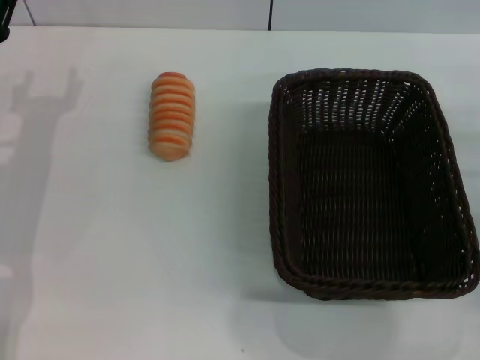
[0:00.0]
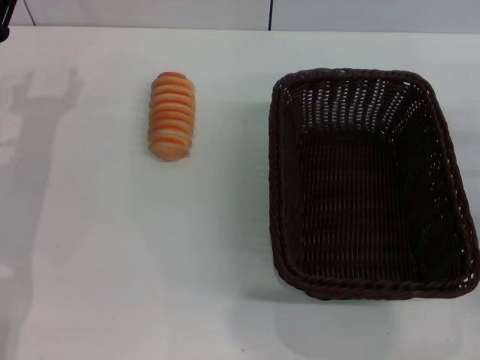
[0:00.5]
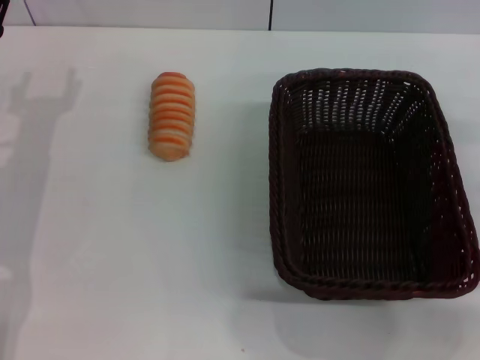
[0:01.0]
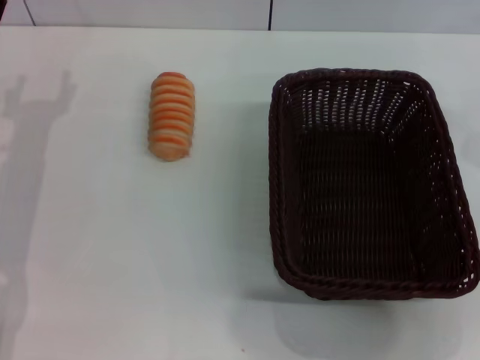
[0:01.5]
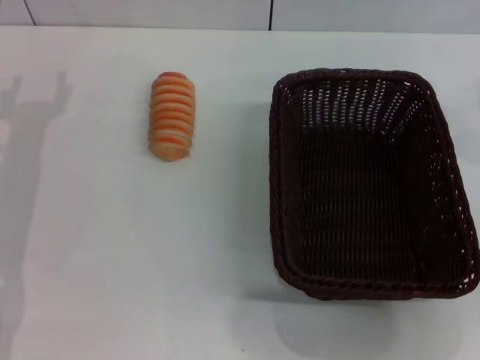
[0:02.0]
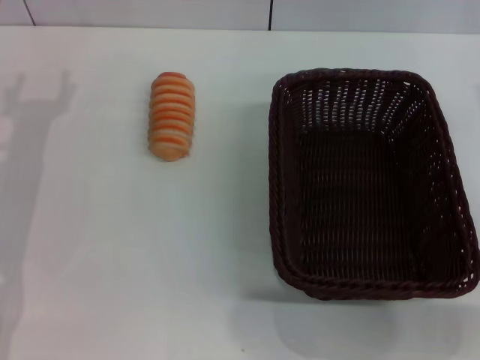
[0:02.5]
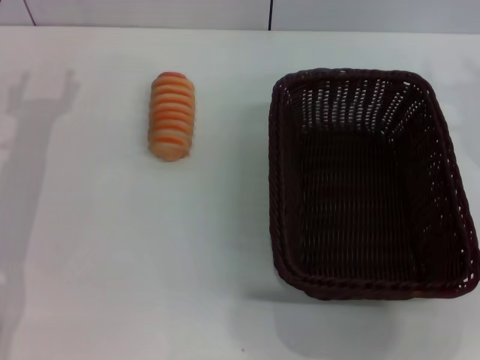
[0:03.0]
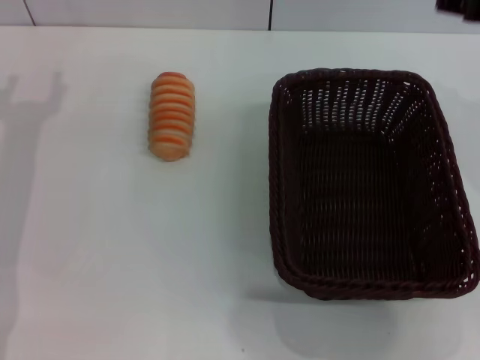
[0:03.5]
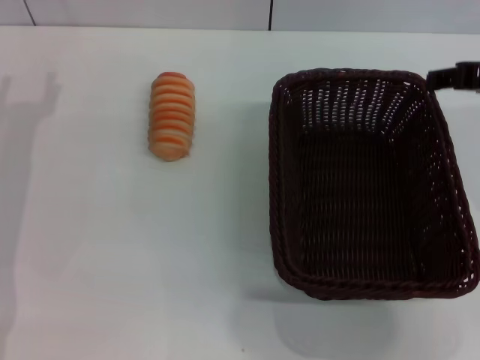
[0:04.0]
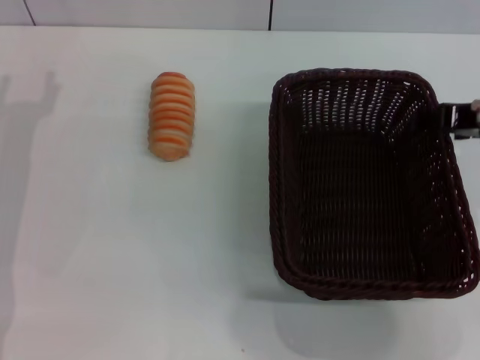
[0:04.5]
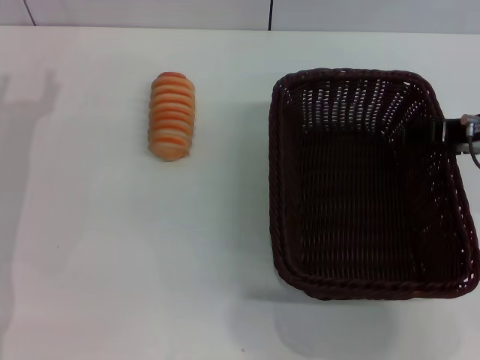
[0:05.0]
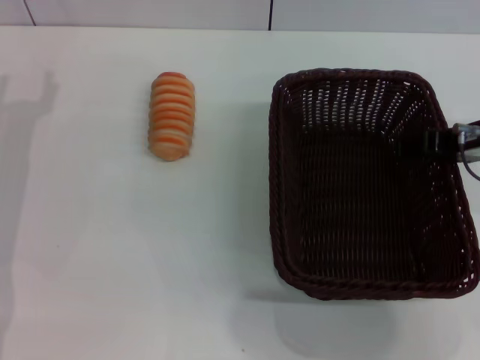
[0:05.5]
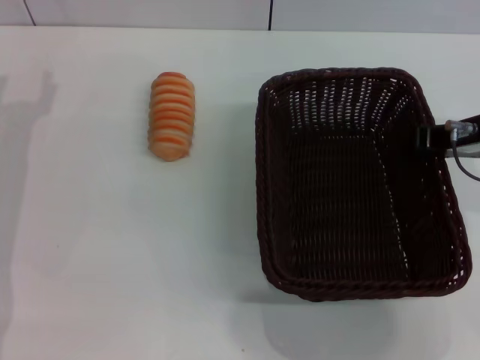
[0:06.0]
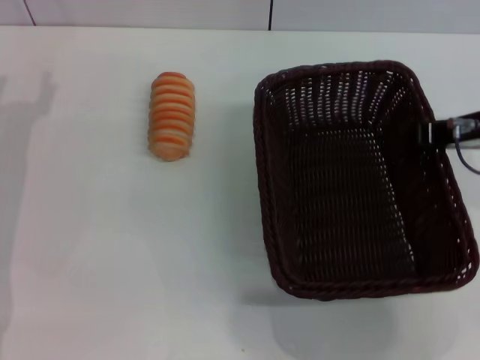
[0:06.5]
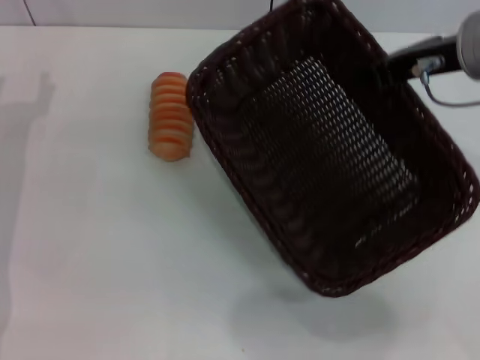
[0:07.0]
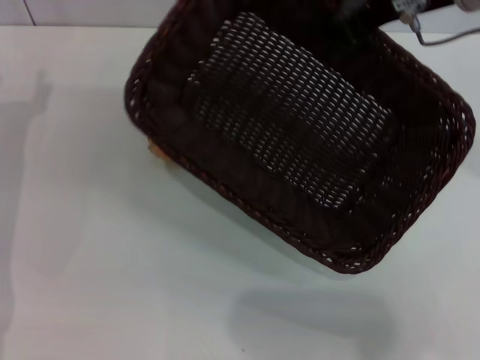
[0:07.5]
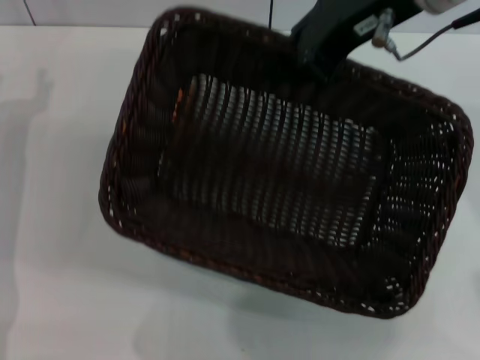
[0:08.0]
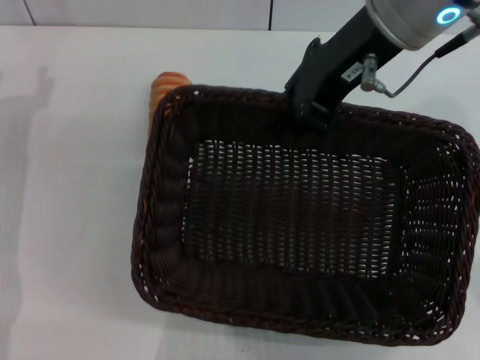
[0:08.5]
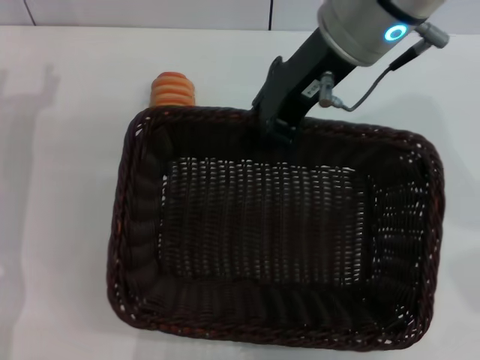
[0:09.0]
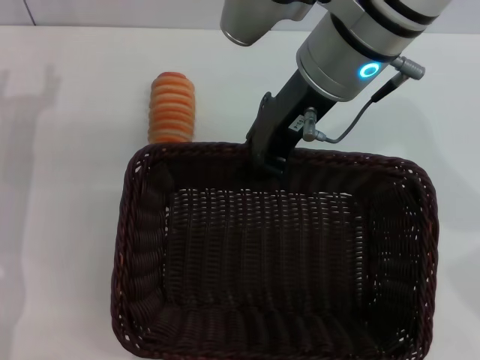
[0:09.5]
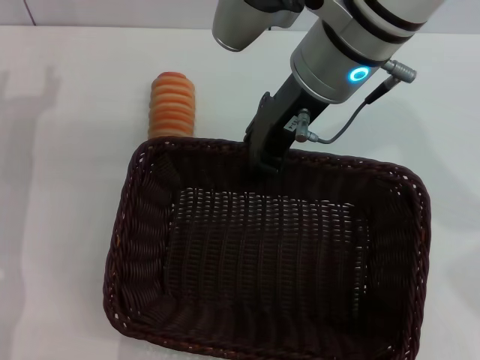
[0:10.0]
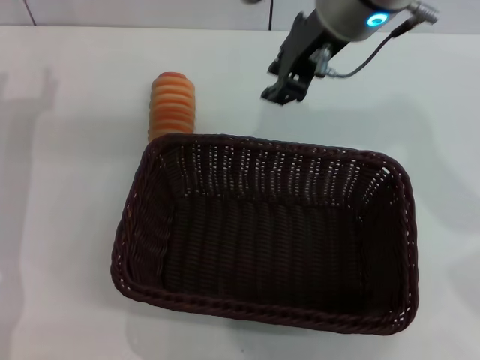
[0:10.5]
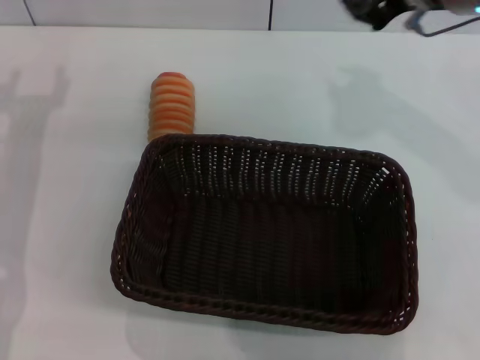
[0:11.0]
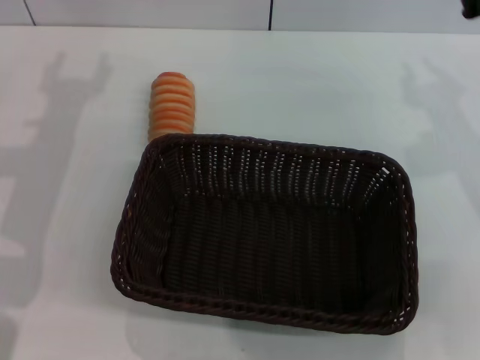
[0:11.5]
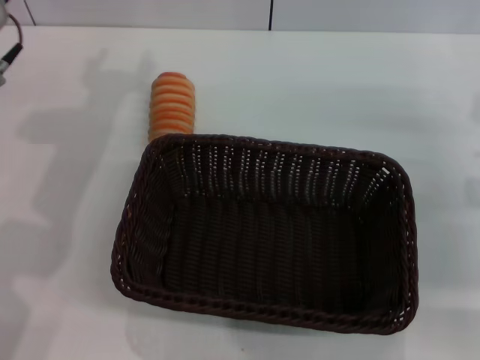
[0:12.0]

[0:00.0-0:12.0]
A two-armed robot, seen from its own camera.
Step, 0:00.0 to 0:06.5: Pick up the dark basket with the right gripper.
Step, 0:07.0 to 0:10.0: Place the dark basket in the center of view with the right gripper.
0:00.0 to 0:02.0: The right gripper goes some 10 cm upward and to the left.
0:02.0 to 0:04.0: The right gripper shifts roughly 10 cm upward.
0:04.0 to 0:06.0: The right gripper goes roughly 5 cm downward, and closes.
0:06.0 to 0:08.0: The right gripper moves upward and to the left, some 15 cm, and closes its fingers.
0:08.0 to 0:10.0: The right gripper shifts some 10 cm downward and to the left.
0:10.0 to 0:12.0: The left gripper goes approximately 15 cm upward and to the right, while the right gripper shifts about 25 cm to the right and downward.

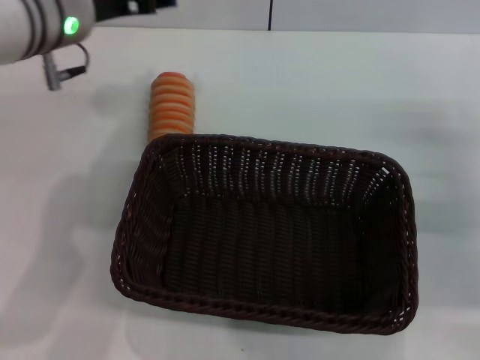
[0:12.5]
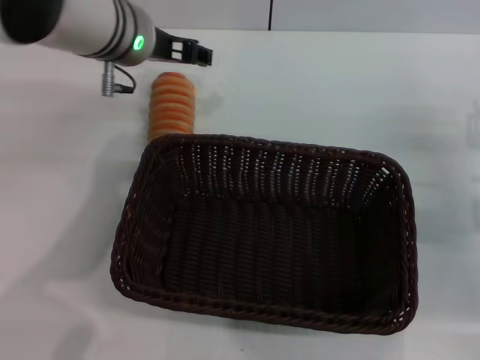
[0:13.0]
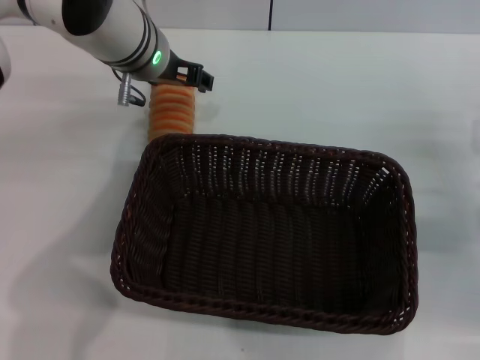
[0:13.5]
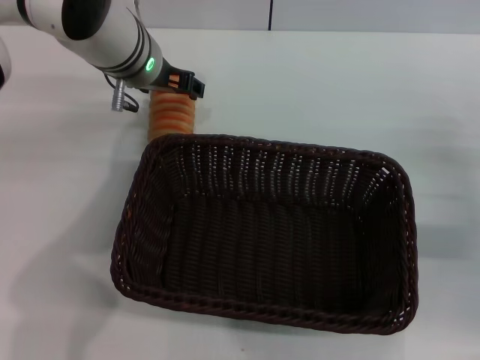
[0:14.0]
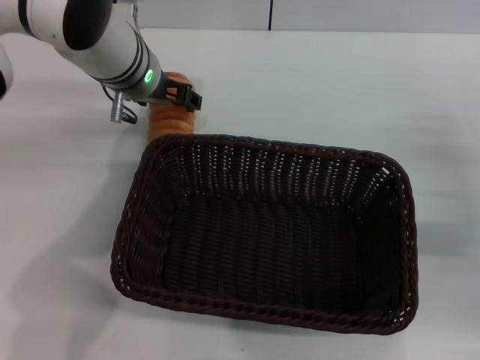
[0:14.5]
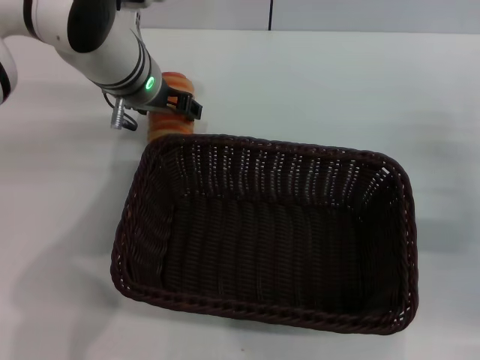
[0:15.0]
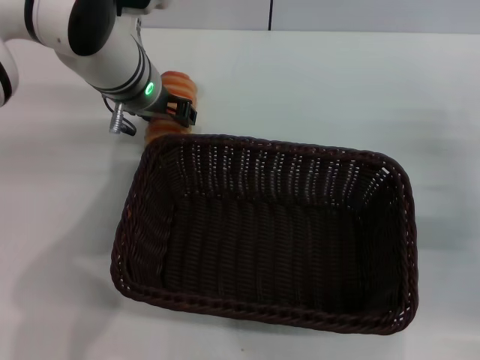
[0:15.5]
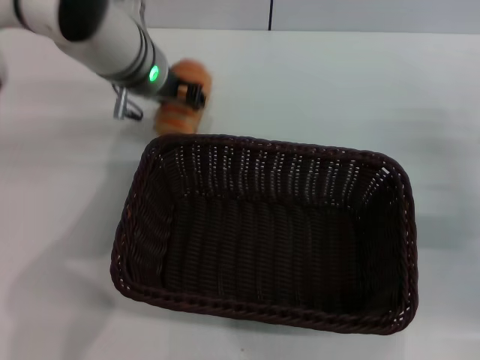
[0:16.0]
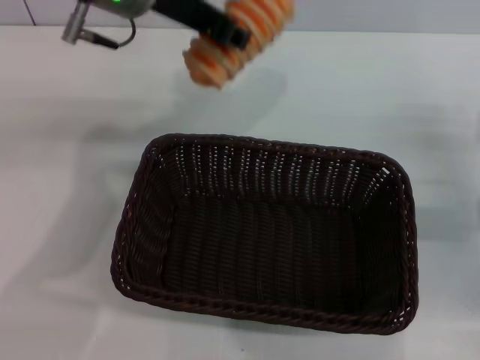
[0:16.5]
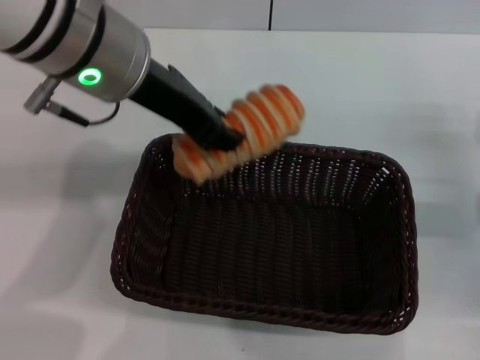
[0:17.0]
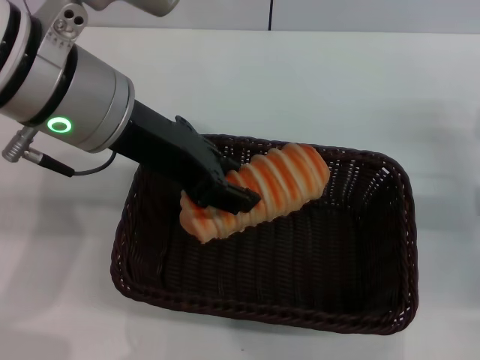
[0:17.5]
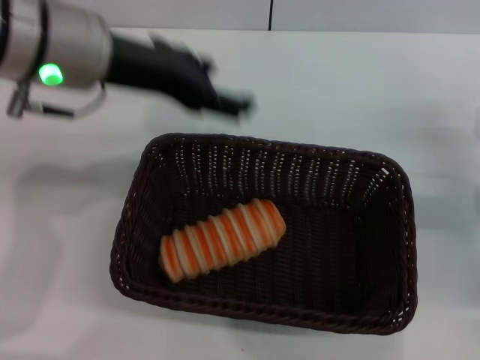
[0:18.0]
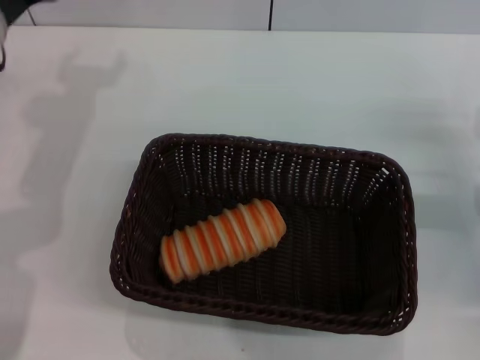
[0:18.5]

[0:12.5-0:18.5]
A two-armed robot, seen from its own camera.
Step, 0:12.5 to 0:16.0: Pick up the long bread with the left gripper.
Step, 0:16.5 to 0:18.0: Place the long bread into the dark basket with the left gripper.
0:12.5 to 0:14.5: The left gripper is displaced downward and forward by about 10 cm.
0:14.5 to 0:16.5: The left gripper heads upward, covering approximately 10 cm, and closes up.
0:16.5 to 0:18.5: The left gripper travels to the left and downward by some 15 cm, and opens.

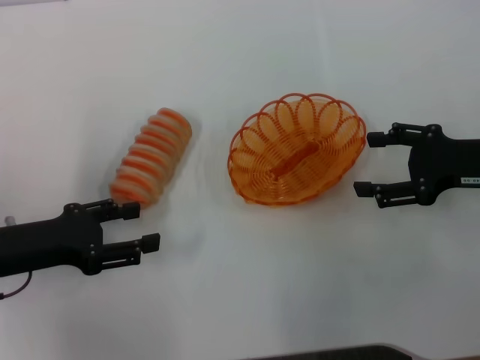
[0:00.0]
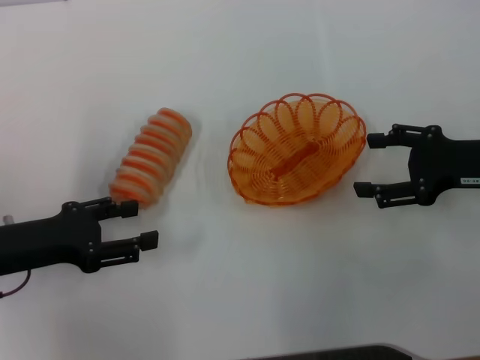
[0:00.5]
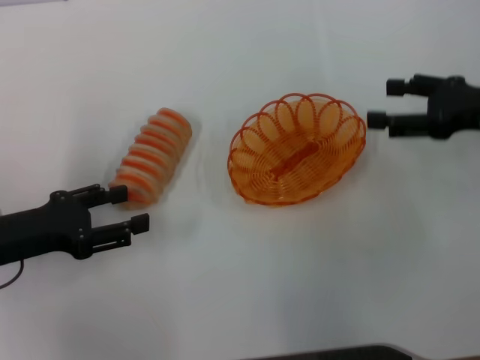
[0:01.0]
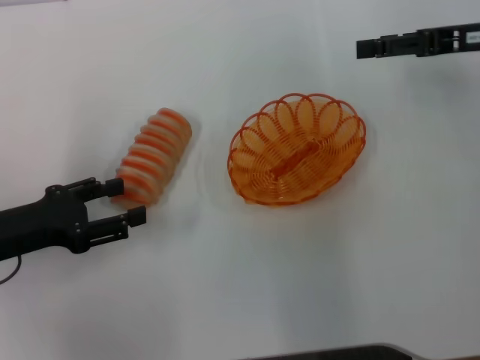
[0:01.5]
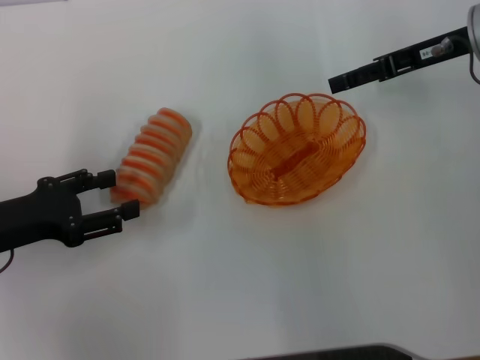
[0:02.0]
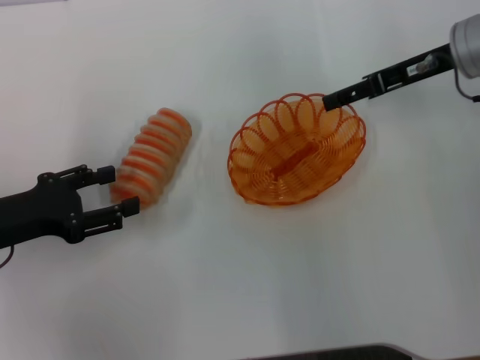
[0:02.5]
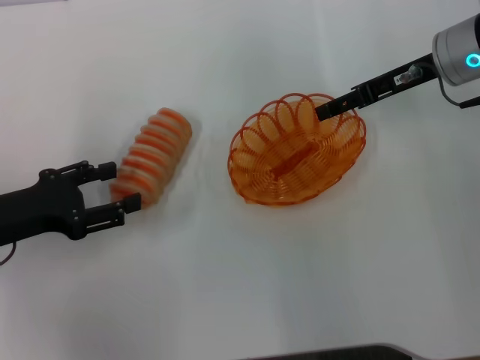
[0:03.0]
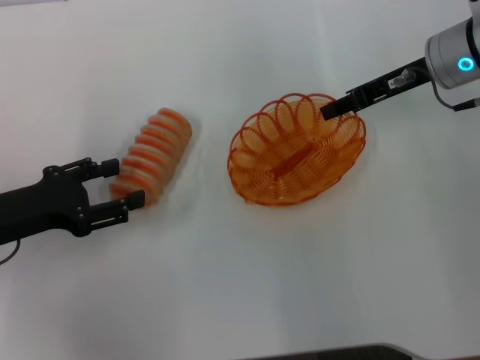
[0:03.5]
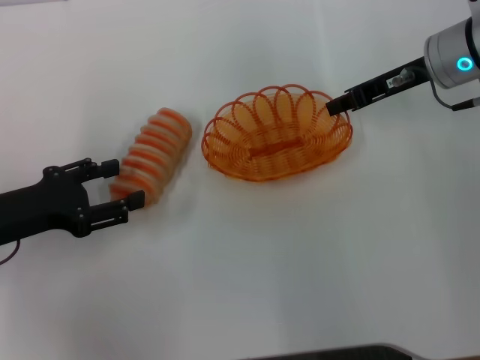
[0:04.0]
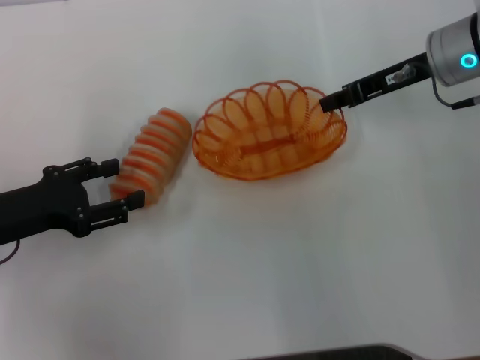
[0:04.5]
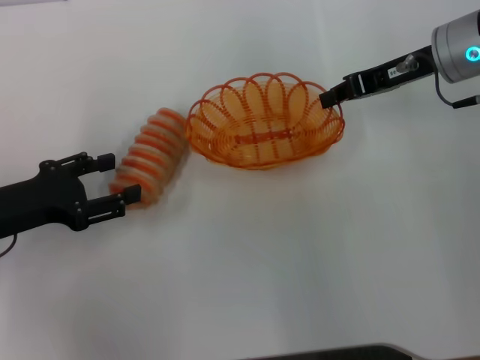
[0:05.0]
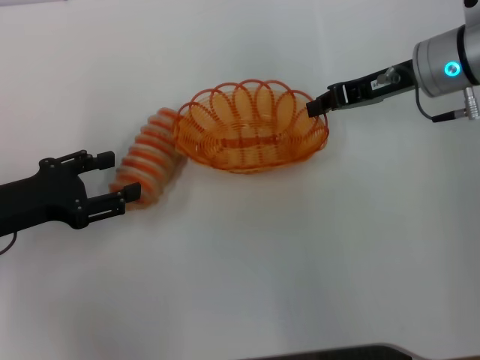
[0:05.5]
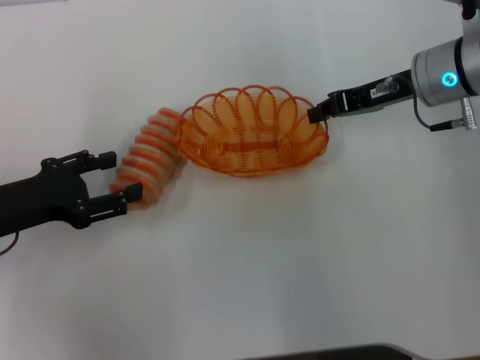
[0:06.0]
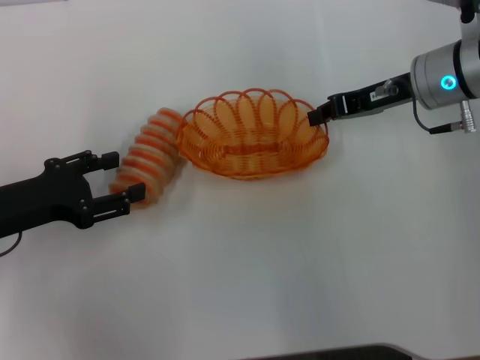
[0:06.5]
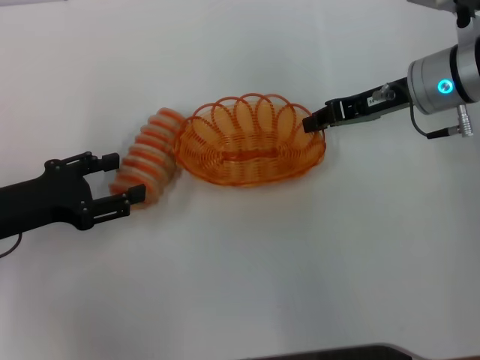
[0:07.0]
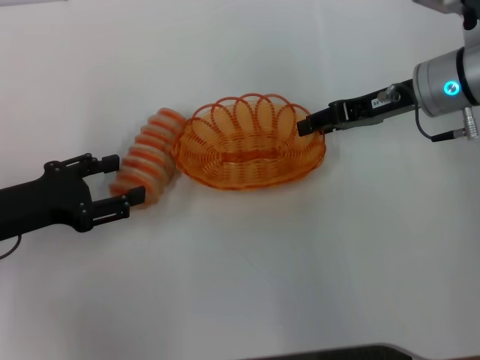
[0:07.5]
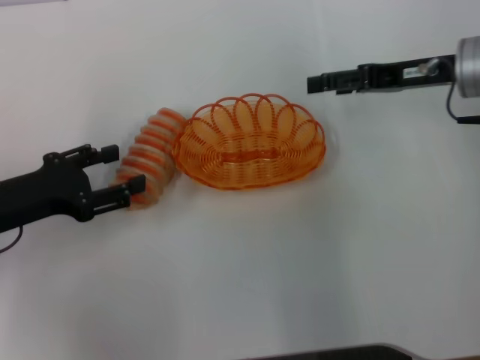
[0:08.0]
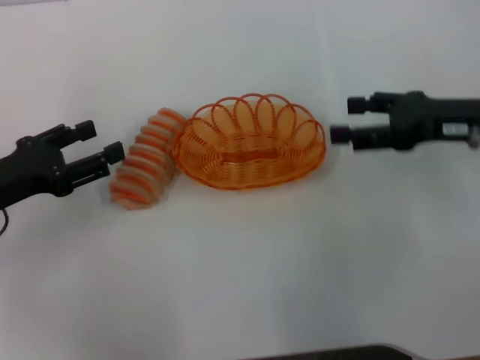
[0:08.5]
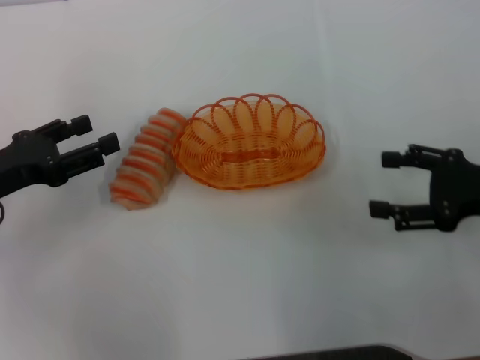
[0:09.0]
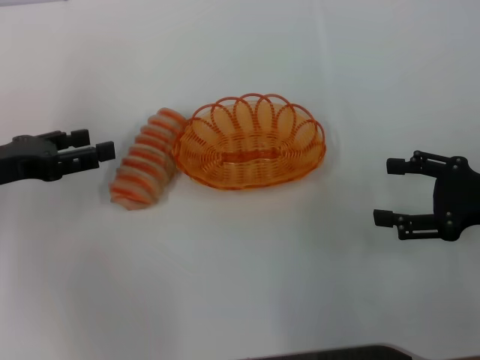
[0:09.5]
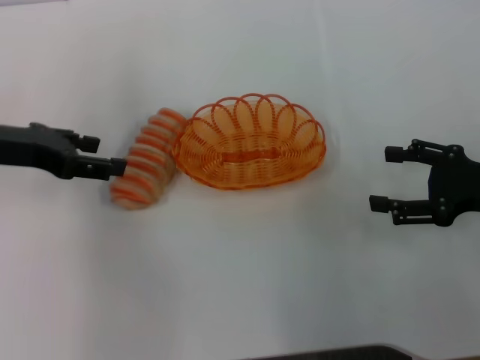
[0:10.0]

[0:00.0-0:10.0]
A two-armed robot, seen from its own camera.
Step, 0:00.0 to 0:04.5: Pick up the basket with the right gripper.
Step, 0:05.0 to 0:08.0: Place the basket in the center of view with the right gripper.
0:00.0 to 0:02.0: The right gripper shifts approximately 15 cm forward and upward.
0:02.0 to 0:04.0: The right gripper closes its fingers.
0:04.0 to 0:06.0: The grippers stay close to where they were, moving slightly.
0:06.0 to 0:08.0: The right gripper opens its fingers.
0:08.0 to 0:10.0: The right gripper shifts approximately 15 cm backward and to the right; the left gripper shifts about 10 cm forward and upward.
